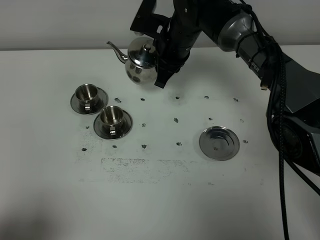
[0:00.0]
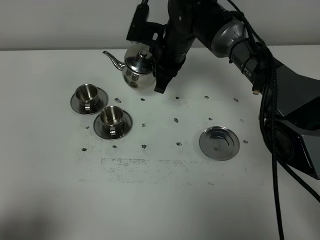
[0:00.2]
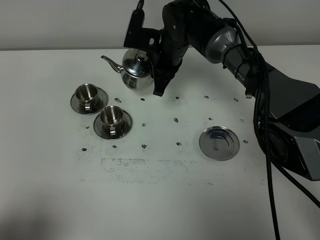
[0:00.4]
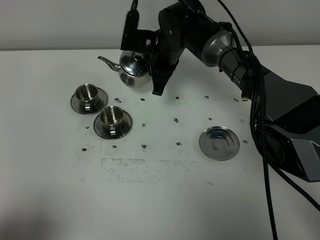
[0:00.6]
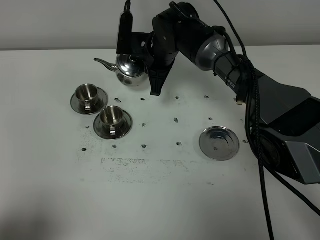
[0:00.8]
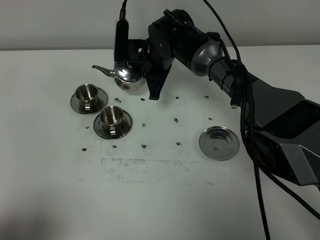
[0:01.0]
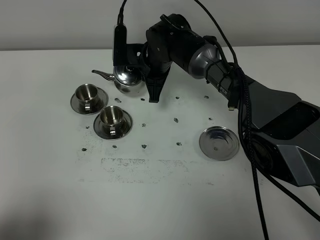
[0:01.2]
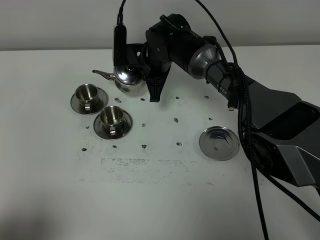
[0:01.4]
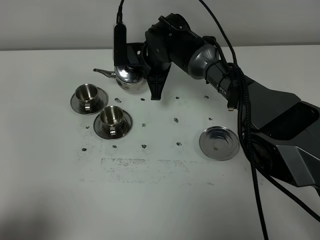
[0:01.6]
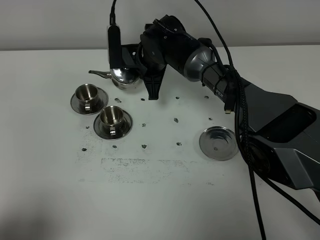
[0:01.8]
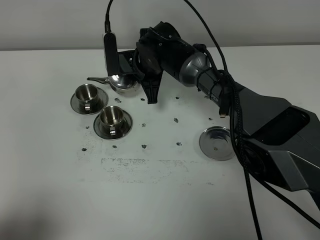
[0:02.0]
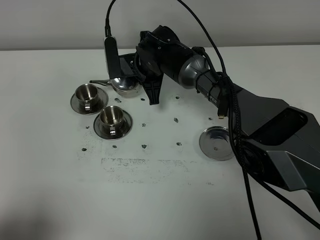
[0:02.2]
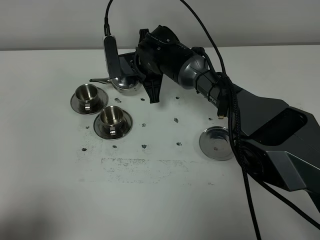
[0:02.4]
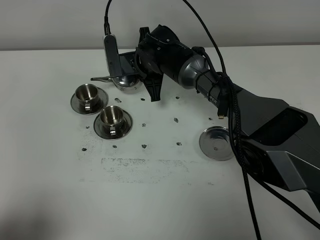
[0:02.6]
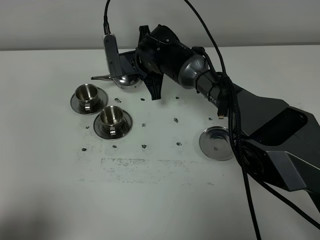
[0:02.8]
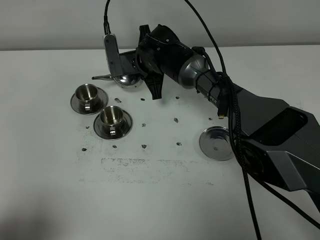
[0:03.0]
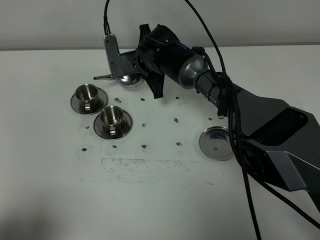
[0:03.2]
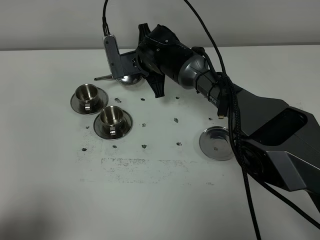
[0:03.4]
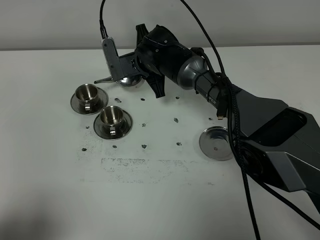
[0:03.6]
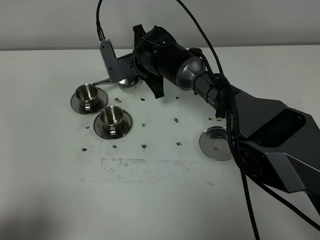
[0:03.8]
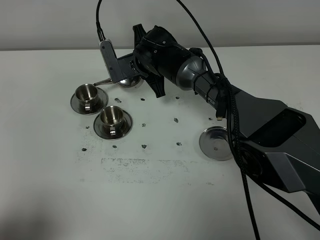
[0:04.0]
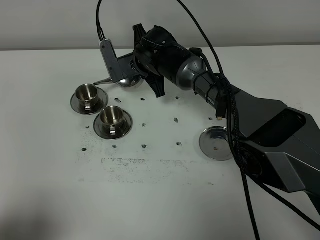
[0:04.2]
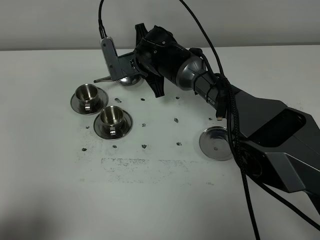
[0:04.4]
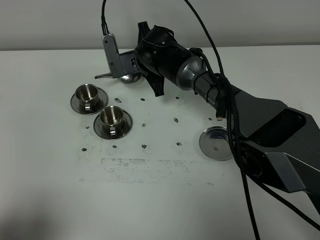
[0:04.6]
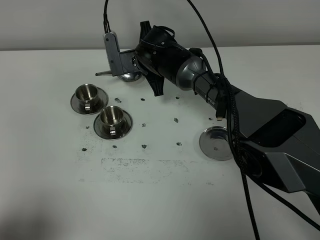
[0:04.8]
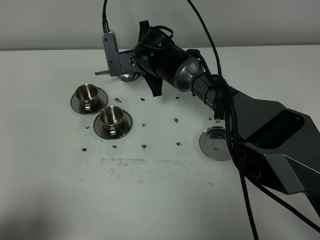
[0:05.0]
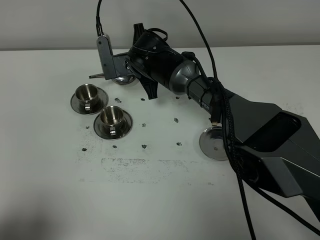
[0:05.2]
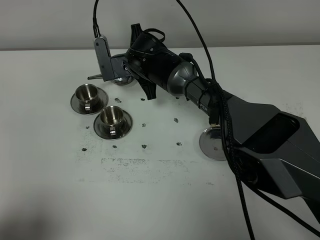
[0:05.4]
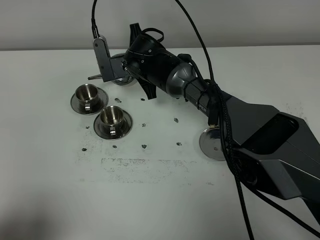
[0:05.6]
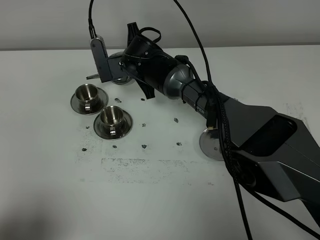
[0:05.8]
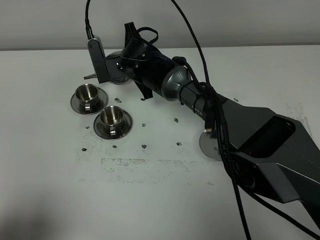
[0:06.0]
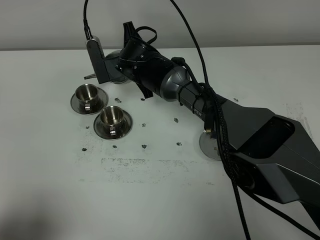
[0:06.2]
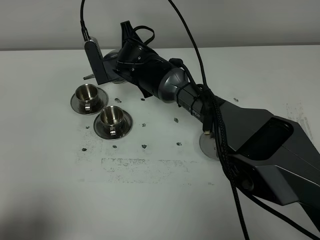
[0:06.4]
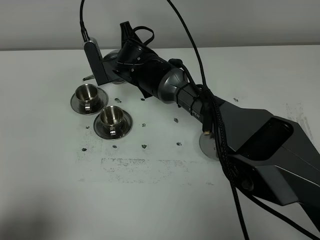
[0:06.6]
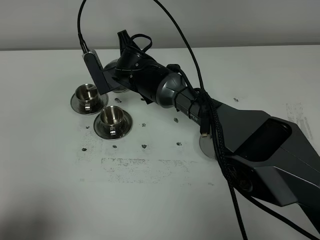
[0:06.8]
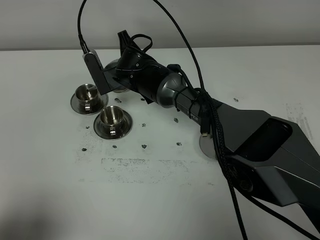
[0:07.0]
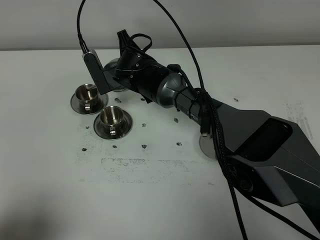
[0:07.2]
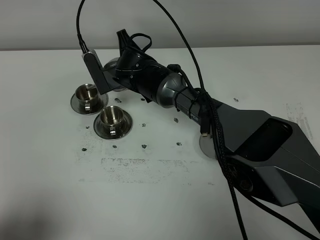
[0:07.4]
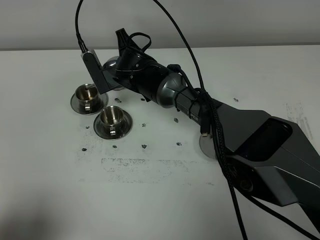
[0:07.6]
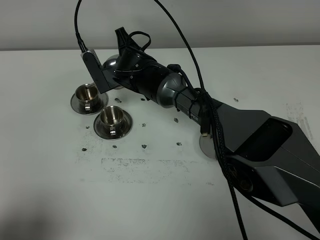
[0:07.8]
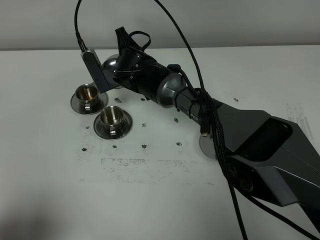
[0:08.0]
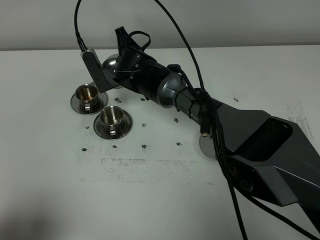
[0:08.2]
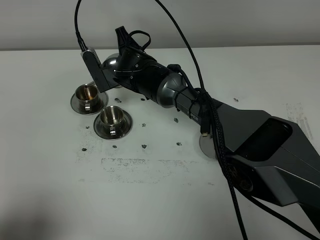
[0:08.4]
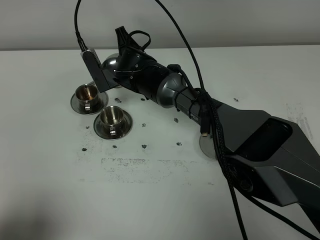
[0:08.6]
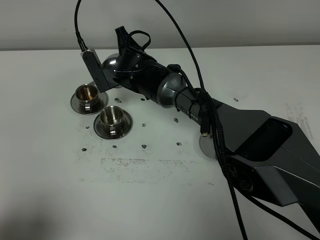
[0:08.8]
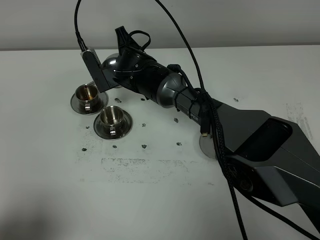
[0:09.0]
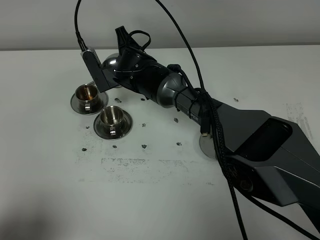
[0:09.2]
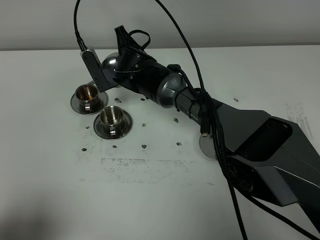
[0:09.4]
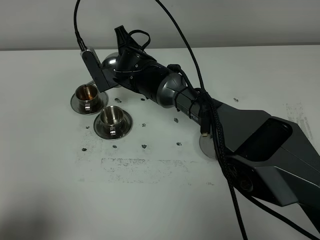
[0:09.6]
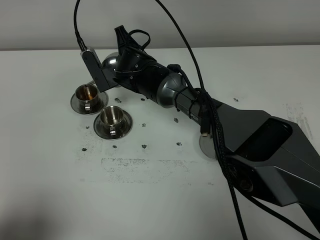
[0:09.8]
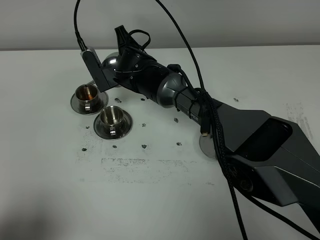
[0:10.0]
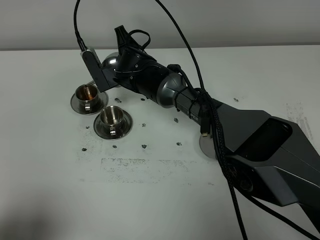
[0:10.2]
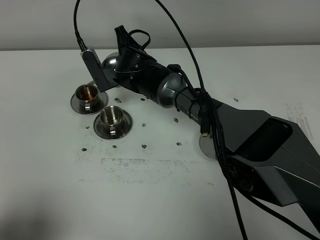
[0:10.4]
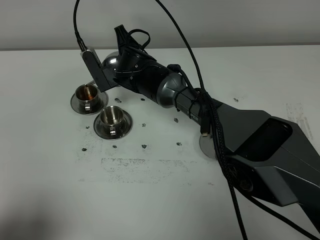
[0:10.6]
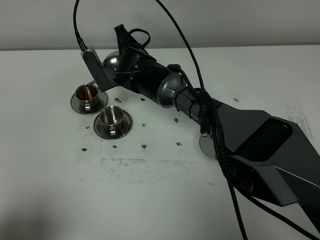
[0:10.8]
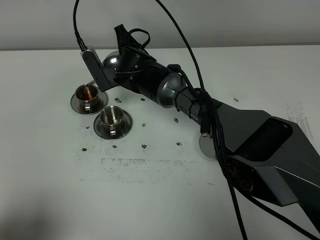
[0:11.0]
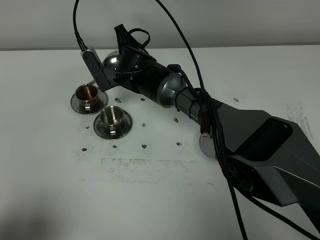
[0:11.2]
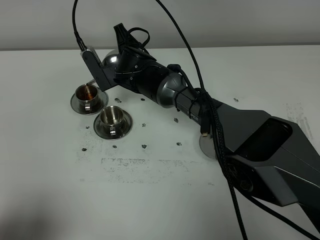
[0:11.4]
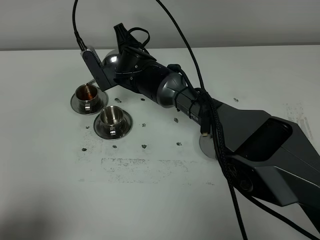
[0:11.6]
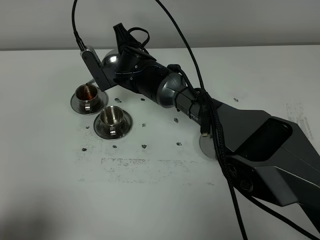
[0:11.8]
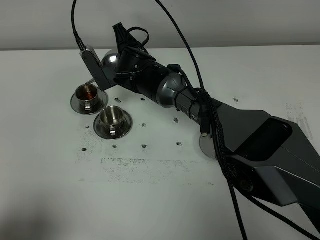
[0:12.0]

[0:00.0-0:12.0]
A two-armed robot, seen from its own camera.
Task of the whole recording: grasp the stainless steel teapot and pour the tea into the two stainless steel teacups one by one, put the stainless steel teapot back in its original place.
0:00.0 to 0:01.6: The right gripper is displaced downward by some 5 cm.
0:01.6 to 0:03.0: The grippers stay close to where they were, moving slightly.
0:03.0 to 0:07.6: There are only small adjustments of the grippers.
0:07.6 to 0:10.4: Both grippers stay put.
0:10.4 to 0:12.0: Both grippers stay about where they are.

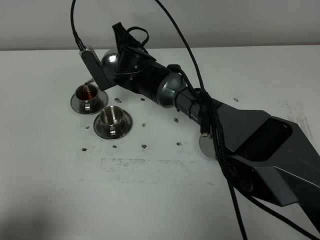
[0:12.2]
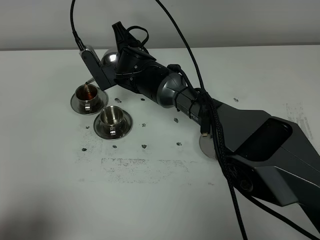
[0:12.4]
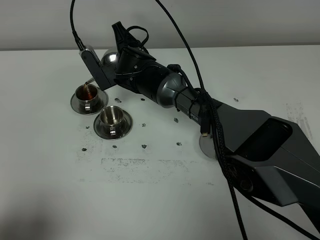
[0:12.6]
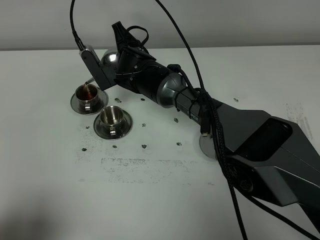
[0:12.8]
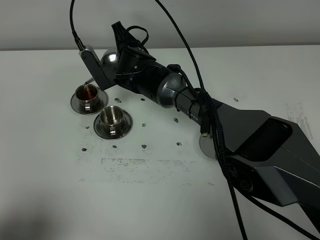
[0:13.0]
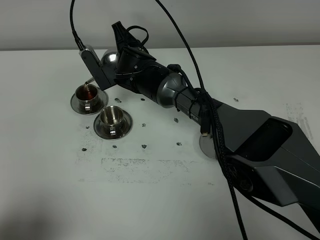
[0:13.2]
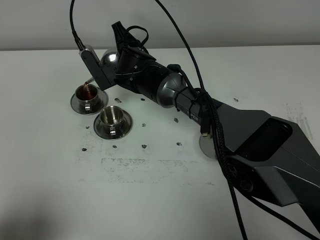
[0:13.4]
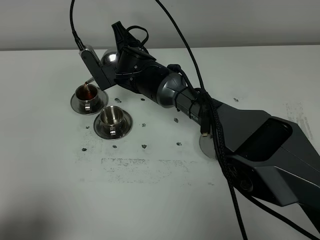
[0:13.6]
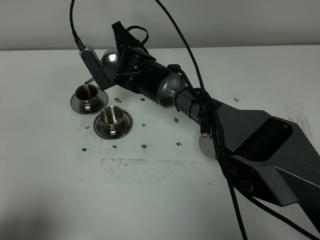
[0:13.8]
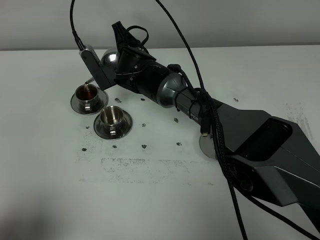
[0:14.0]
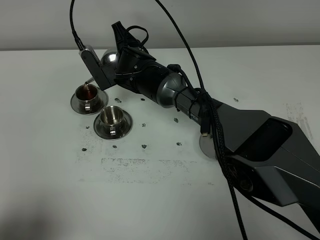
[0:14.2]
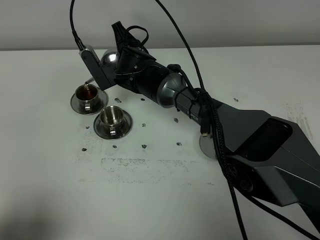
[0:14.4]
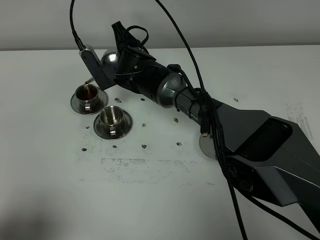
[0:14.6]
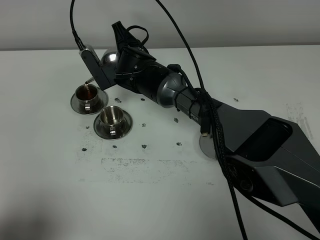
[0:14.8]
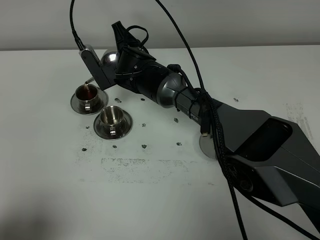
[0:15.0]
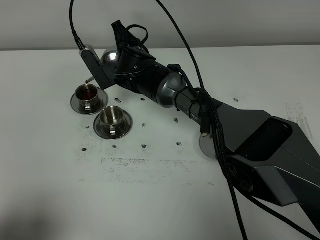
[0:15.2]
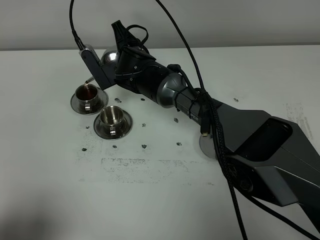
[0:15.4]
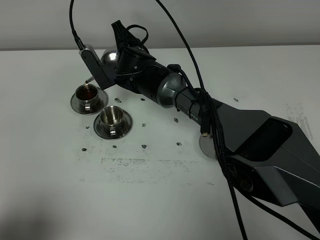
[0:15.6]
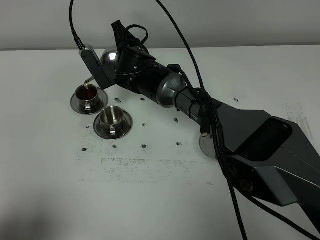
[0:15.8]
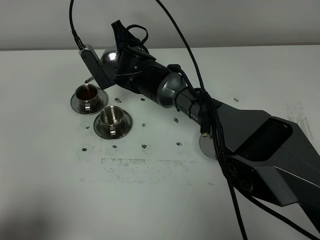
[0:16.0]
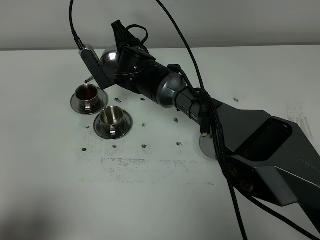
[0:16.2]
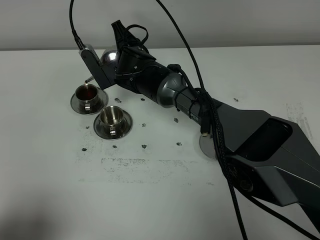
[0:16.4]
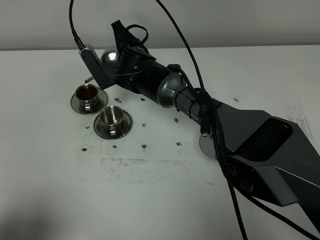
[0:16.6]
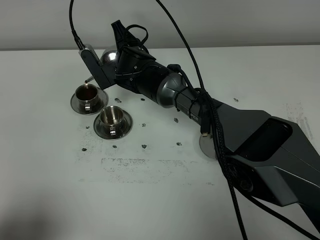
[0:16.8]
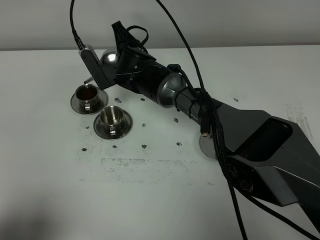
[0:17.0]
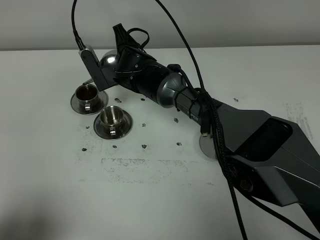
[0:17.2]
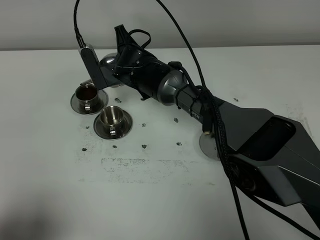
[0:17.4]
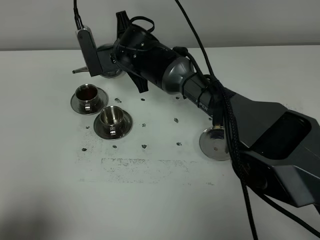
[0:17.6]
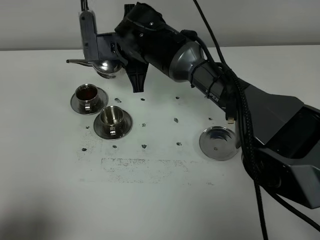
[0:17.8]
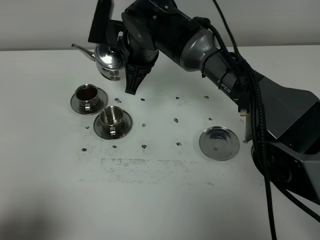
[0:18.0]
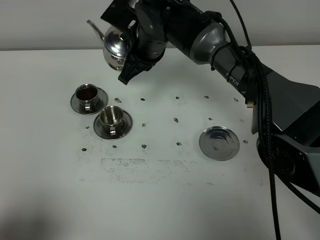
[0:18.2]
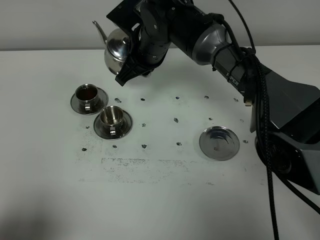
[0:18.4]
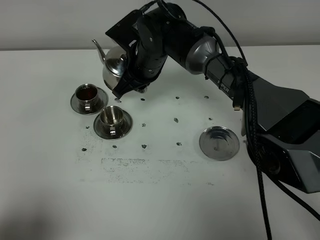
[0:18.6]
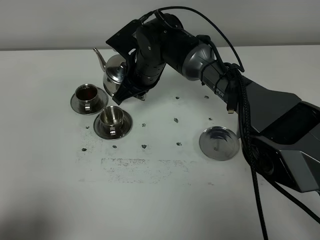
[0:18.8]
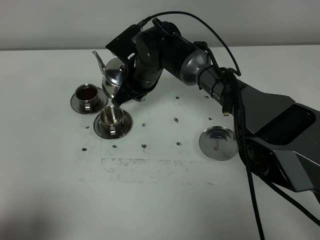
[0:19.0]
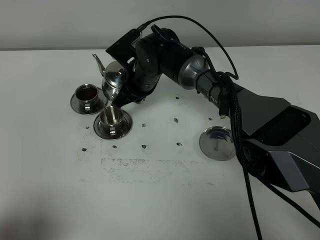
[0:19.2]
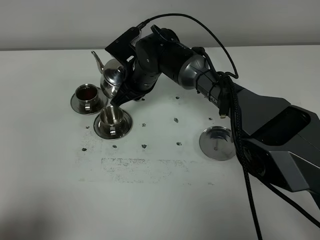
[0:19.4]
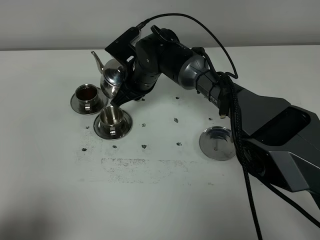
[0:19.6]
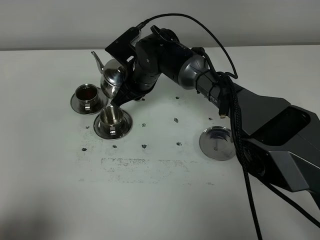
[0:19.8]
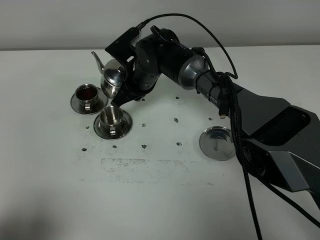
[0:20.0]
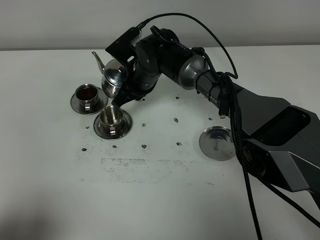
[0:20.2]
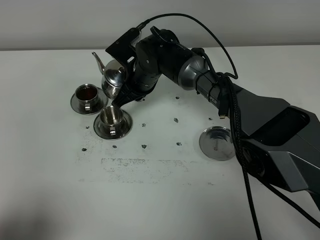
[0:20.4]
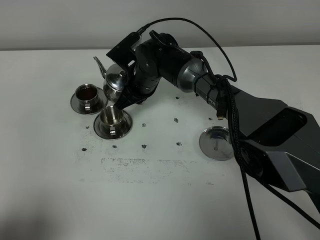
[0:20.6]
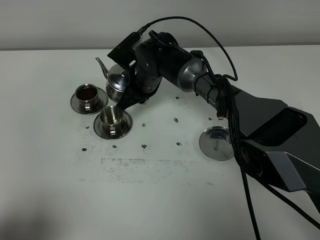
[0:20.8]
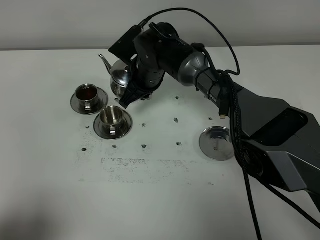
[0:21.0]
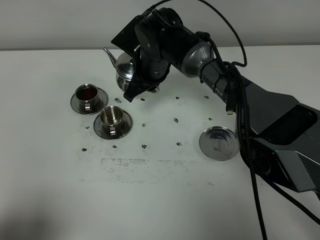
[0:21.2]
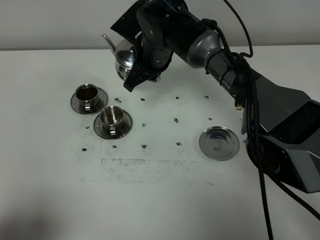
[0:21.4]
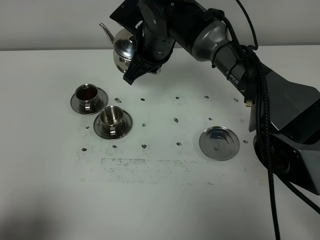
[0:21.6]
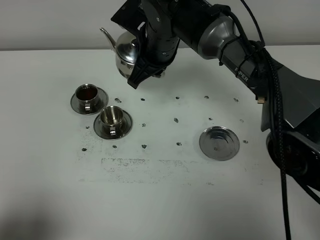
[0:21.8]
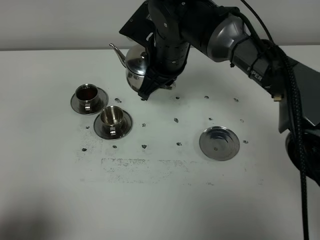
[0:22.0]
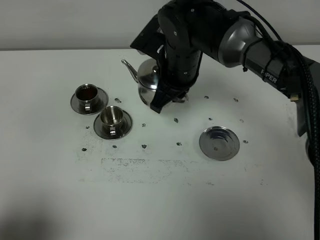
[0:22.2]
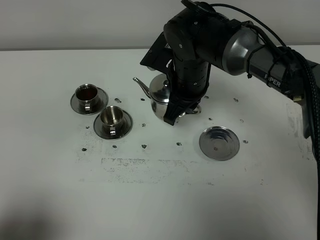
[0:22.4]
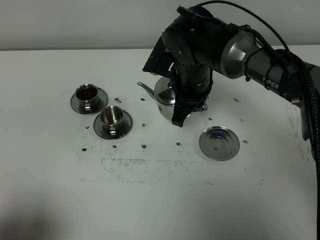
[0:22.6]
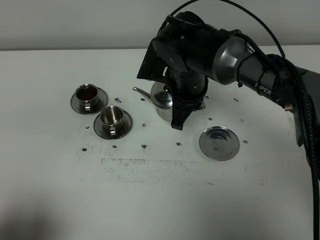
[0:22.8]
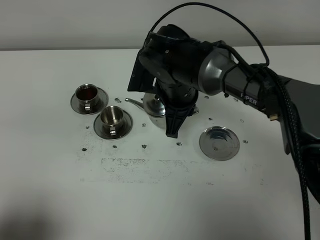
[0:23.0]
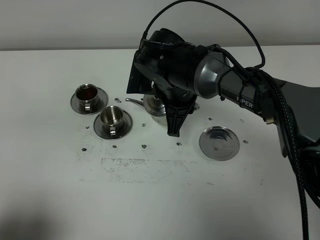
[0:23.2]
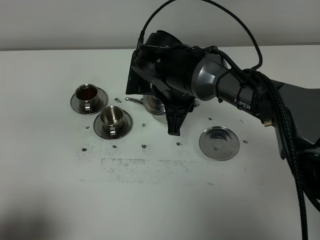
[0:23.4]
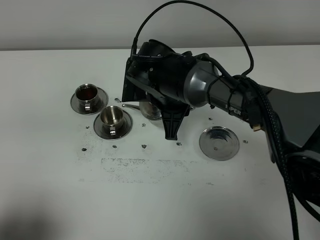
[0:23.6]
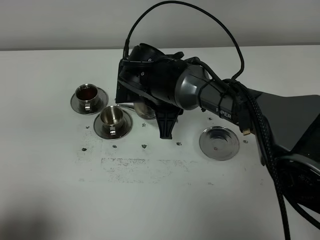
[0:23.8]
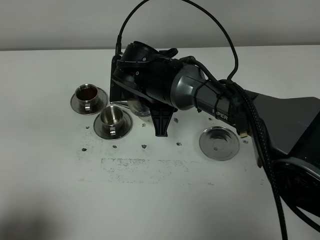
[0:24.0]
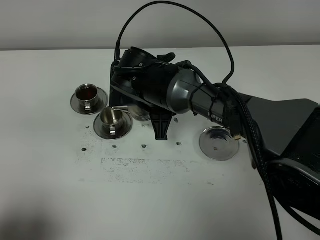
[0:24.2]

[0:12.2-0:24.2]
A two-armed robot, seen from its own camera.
Task of the whole recording: grasp the stainless steel teapot and pour the tea into the two stainless steel teacups one by one, put the stainless steel teapot back in its original place.
0:12.2 to 0:16.6: The two grippers keep their place.
0:16.6 to 0:18.2: The right gripper shifts about 10 cm upward.
0:18.2 to 0:19.8: The right gripper goes some 10 cm downward.
0:19.8 to 0:21.2: The grippers move only a little.
0:21.2 to 0:22.6: The right gripper travels to the right and backward by about 10 cm.
0:22.6 to 0:24.2: The right gripper moves to the left, about 5 cm.
